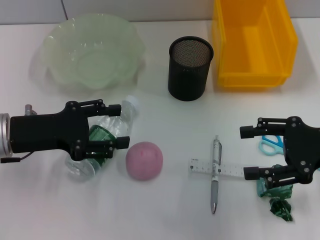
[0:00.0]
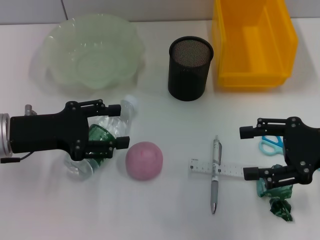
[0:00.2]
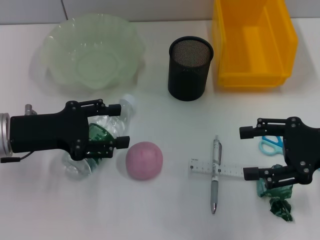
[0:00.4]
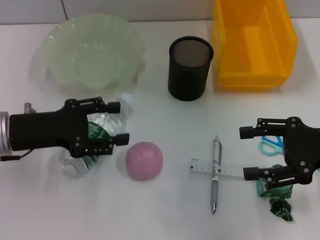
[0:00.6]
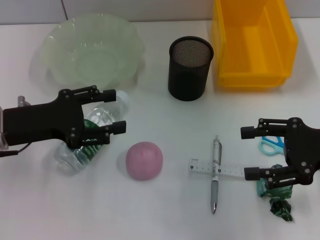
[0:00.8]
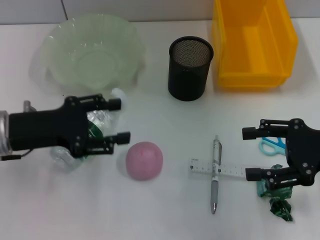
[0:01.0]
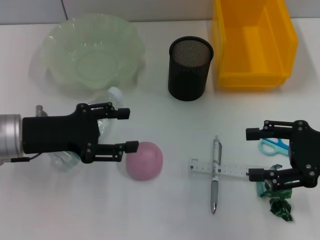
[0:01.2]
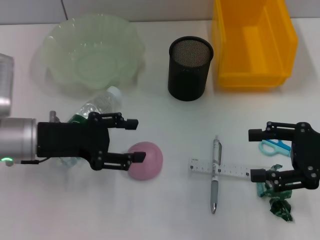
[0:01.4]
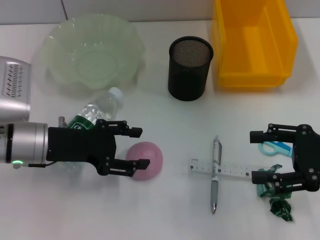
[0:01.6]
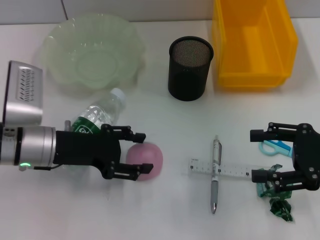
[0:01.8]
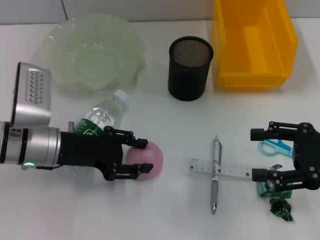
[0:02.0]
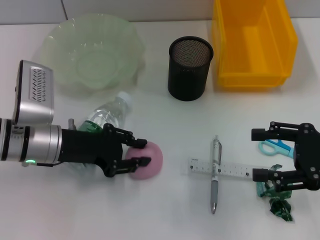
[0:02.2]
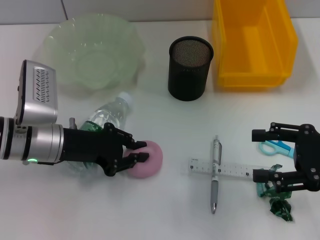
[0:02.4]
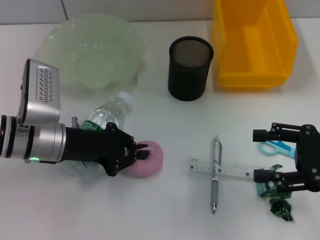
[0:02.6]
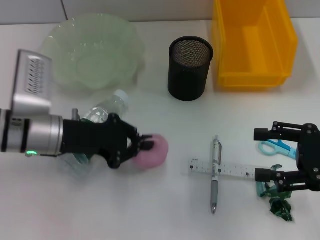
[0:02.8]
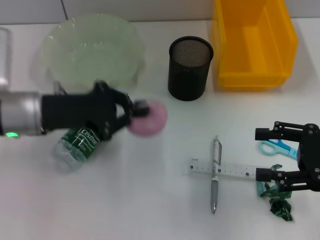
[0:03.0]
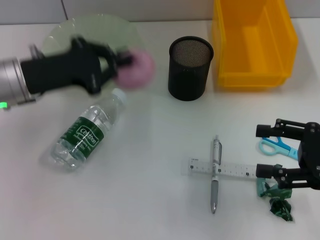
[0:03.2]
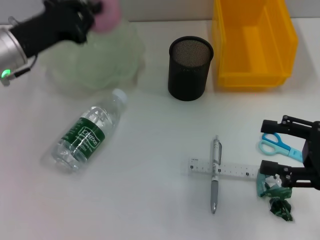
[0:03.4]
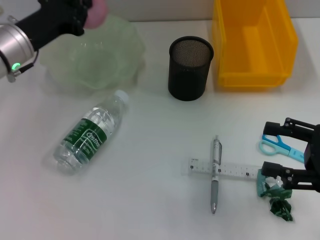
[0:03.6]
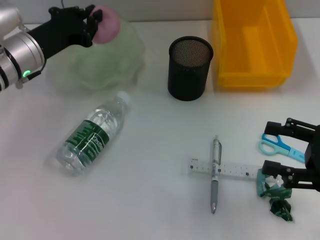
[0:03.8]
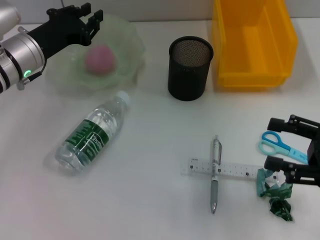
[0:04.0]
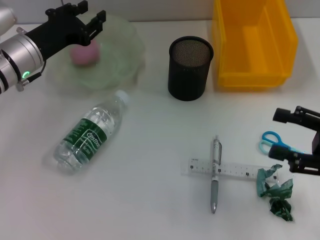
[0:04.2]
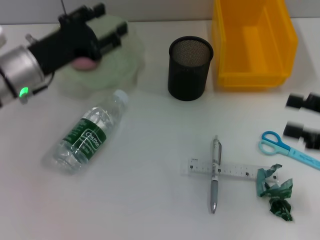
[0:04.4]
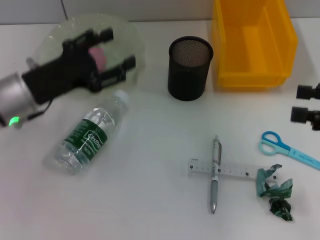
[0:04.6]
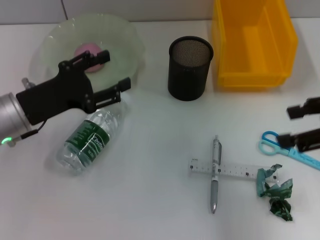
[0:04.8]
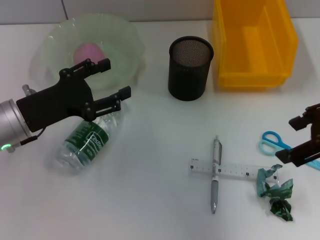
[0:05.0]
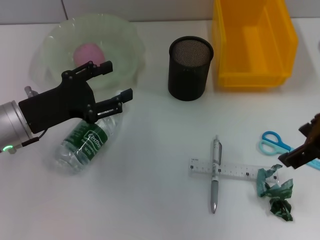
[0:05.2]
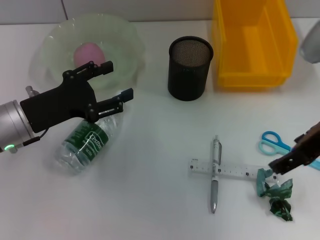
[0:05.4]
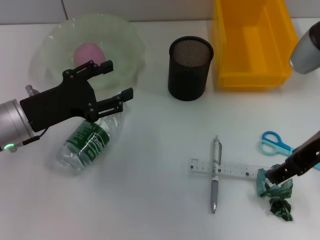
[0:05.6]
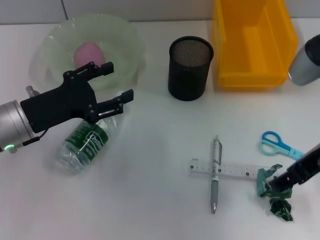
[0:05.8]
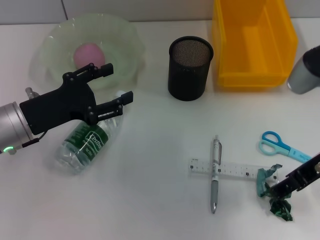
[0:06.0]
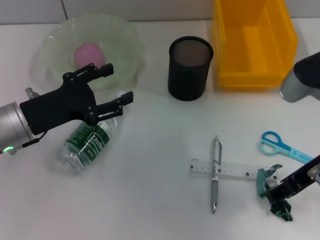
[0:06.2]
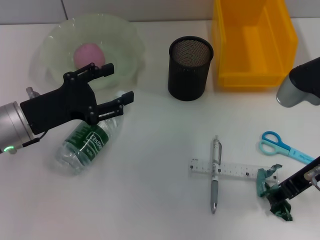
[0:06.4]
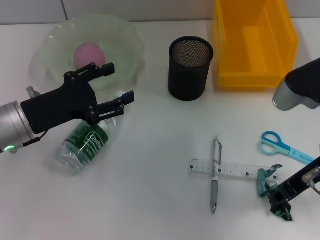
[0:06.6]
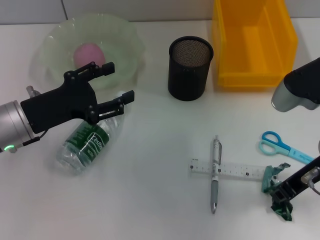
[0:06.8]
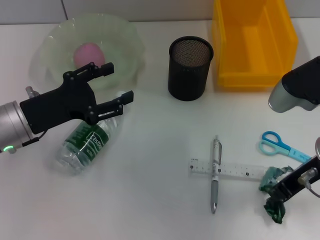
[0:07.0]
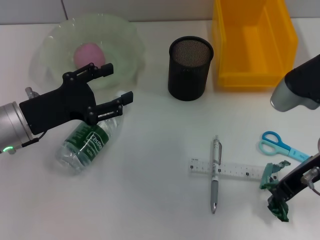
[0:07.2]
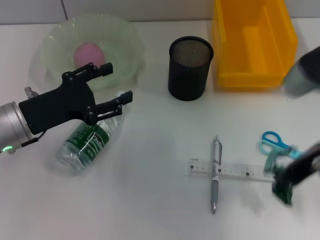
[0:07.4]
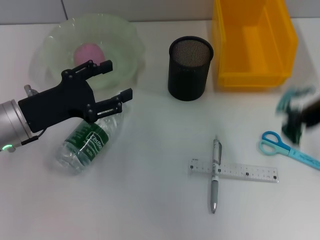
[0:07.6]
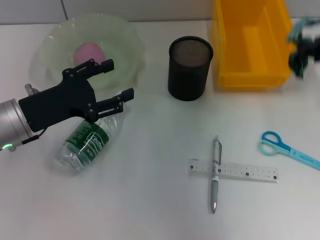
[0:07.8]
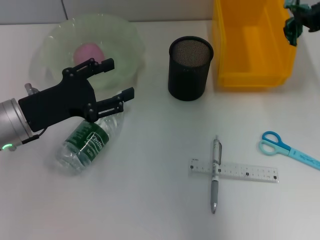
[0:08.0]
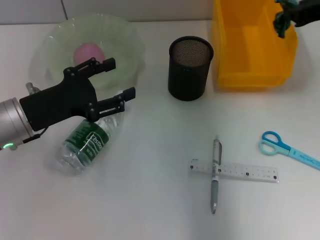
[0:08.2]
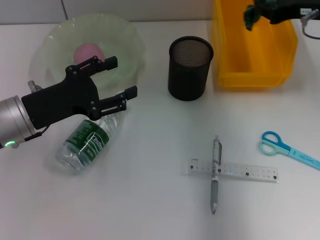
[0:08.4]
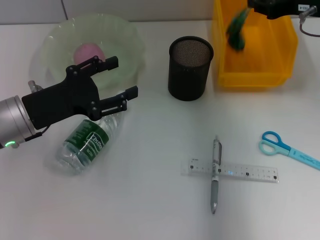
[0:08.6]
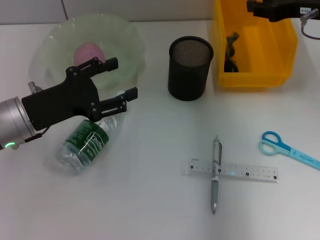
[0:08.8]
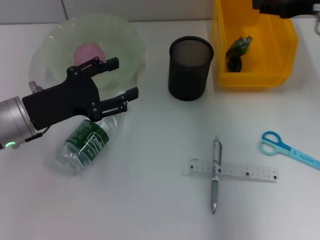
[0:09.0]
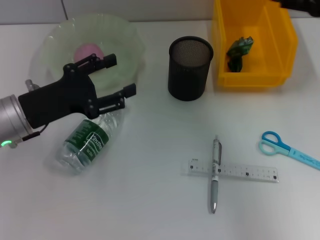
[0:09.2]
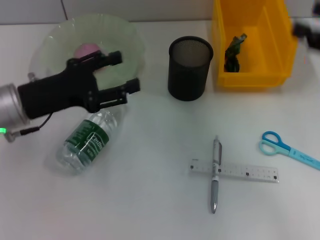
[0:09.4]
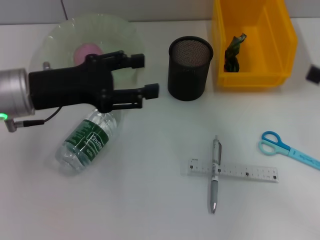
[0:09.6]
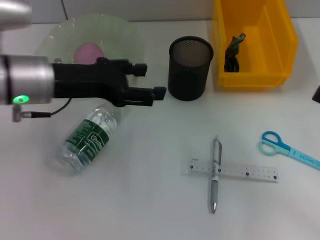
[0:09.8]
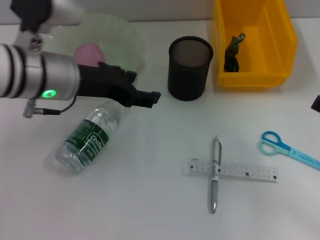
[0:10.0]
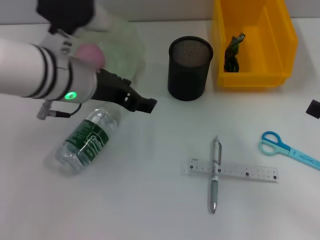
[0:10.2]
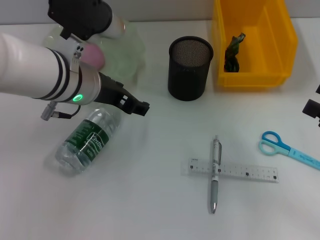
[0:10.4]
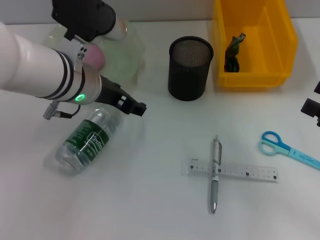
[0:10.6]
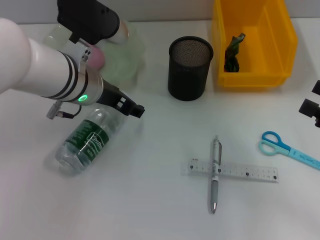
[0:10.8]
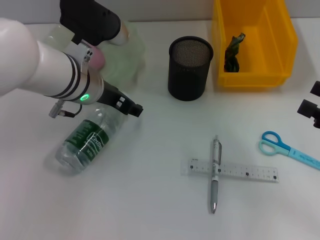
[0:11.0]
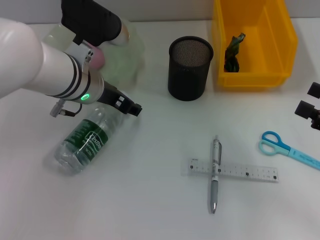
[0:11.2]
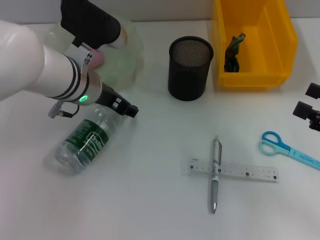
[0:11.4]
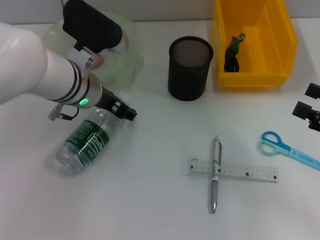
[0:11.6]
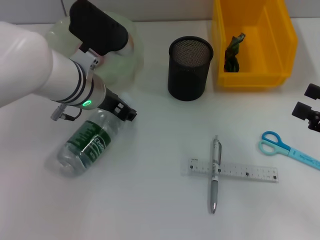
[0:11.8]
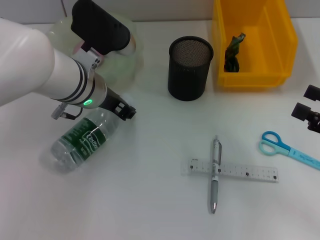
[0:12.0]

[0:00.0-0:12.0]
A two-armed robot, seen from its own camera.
Step, 0.0 to 2.4 s: Grab the orange with the left hand.
Step, 2.6 to 4.2 s: Place the orange into the fruit bowl with the left hand.
Step, 4.4 to 6.8 s: Grab the plastic with the right hand.
Step, 7.0 to 9.0 s: Place the plastic into the trash can with the right hand.
Step, 9.2 to 12.0 s: Grab the water bottle with the left hand.
0.0 to 1.6 s: There are only small adjustments of the grippers.
1.6 to 3.0 s: The left gripper closes up.
3.0 to 4.4 s: The left gripper travels forward by approximately 5 cm, and opens.
4.4 to 6.0 s: The left gripper travels backward by roughly 10 cm, and opens. The right gripper heads to the left and upward, covering some 15 cm.
6.0 to 7.6 s: The right gripper goes about 5 cm upward, and closes.
7.6 to 9.0 s: The right gripper is displaced forward by about 10 cm, and opens up.
9.0 to 10.4 s: The right gripper shifts approximately 20 cm backward, downward and to the right, and opens, while the left gripper is displaced to the right and upward by about 15 cm.
10.4 to 12.0 s: The left gripper shifts by roughly 5 cm.

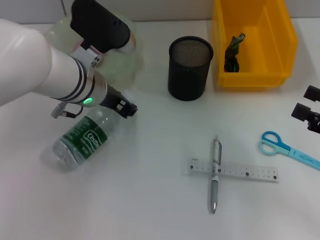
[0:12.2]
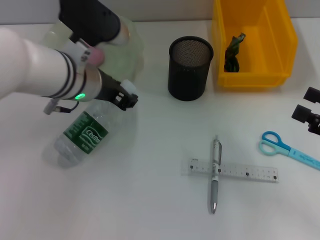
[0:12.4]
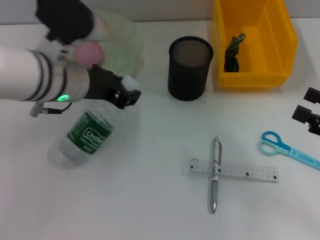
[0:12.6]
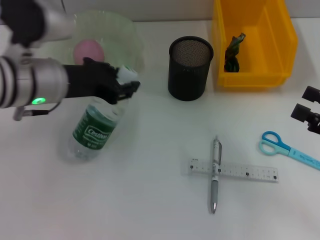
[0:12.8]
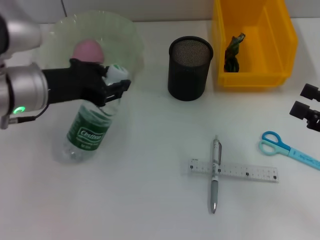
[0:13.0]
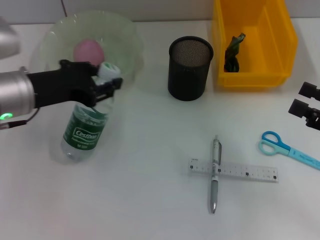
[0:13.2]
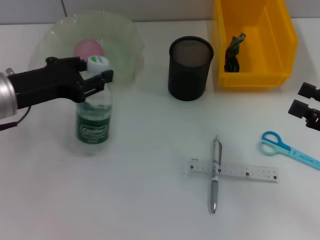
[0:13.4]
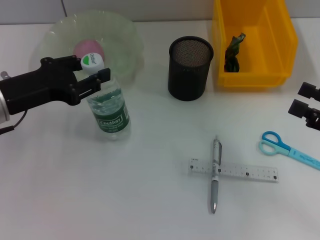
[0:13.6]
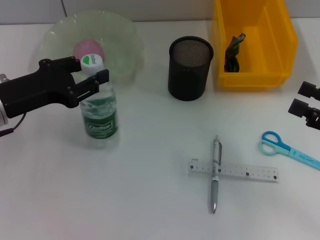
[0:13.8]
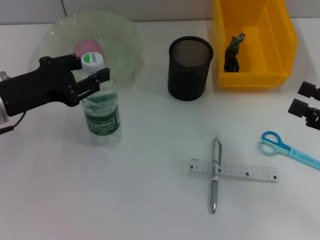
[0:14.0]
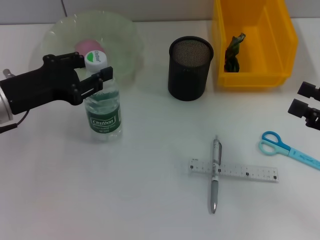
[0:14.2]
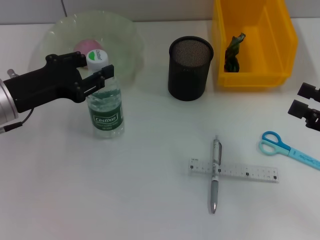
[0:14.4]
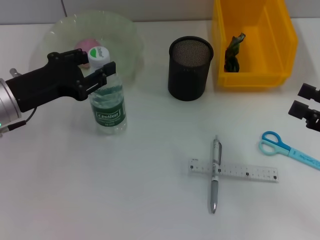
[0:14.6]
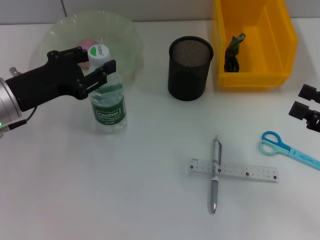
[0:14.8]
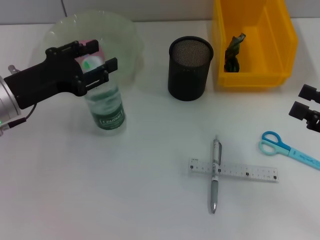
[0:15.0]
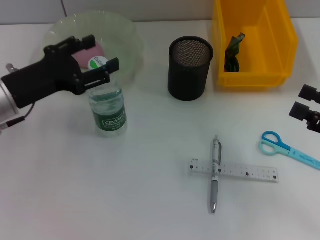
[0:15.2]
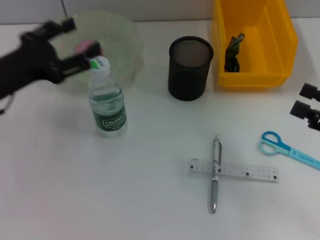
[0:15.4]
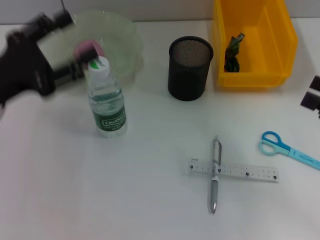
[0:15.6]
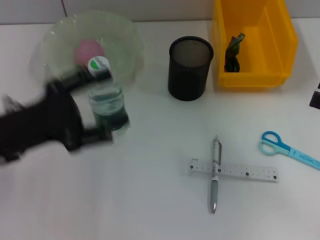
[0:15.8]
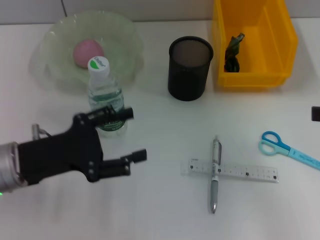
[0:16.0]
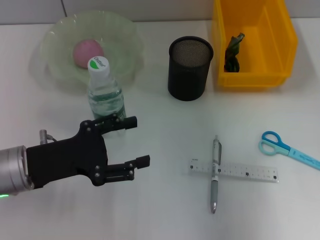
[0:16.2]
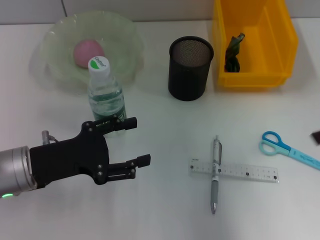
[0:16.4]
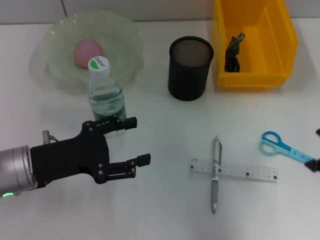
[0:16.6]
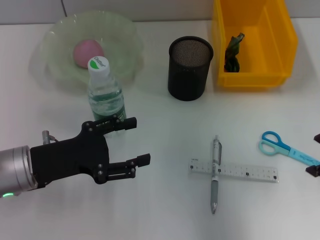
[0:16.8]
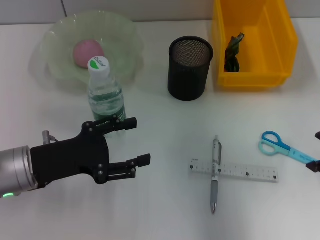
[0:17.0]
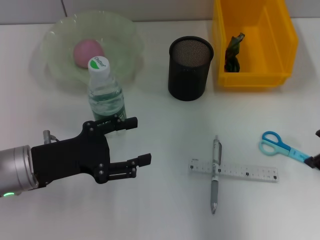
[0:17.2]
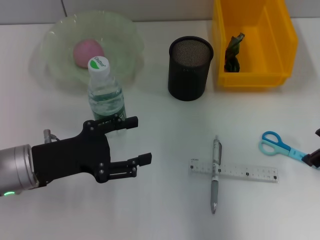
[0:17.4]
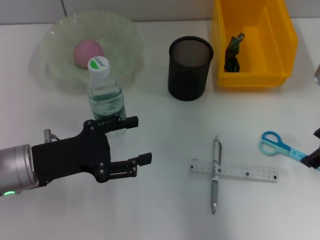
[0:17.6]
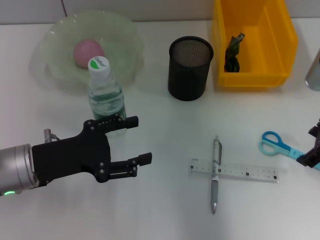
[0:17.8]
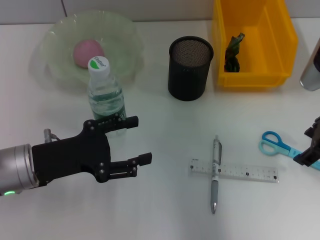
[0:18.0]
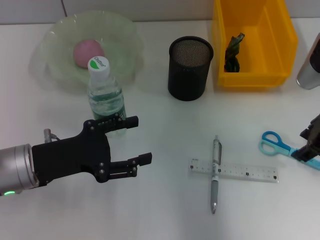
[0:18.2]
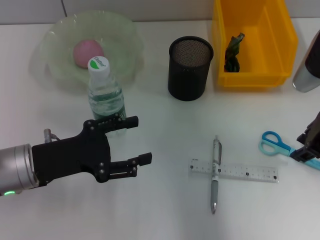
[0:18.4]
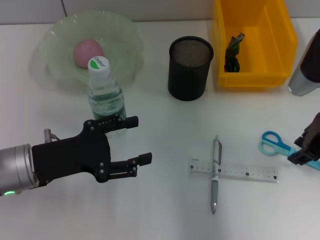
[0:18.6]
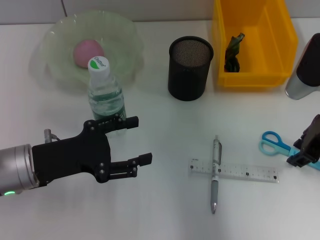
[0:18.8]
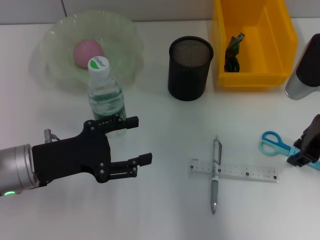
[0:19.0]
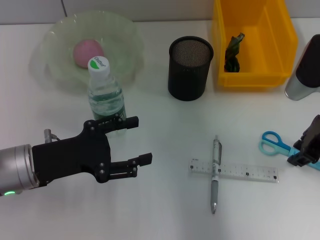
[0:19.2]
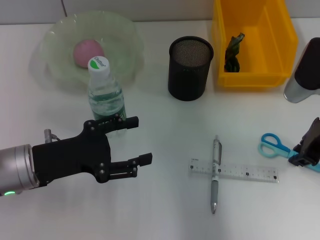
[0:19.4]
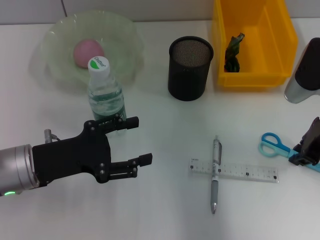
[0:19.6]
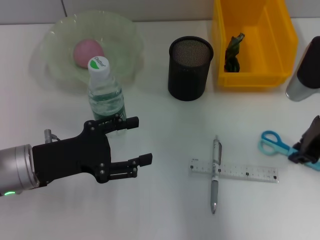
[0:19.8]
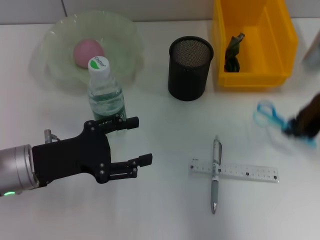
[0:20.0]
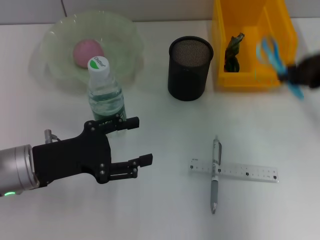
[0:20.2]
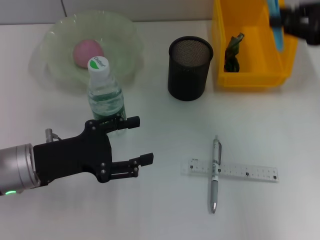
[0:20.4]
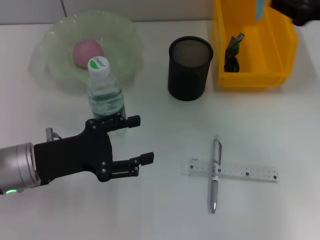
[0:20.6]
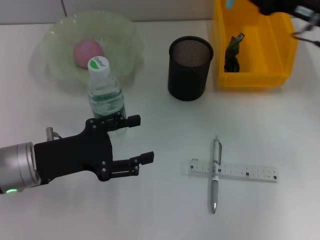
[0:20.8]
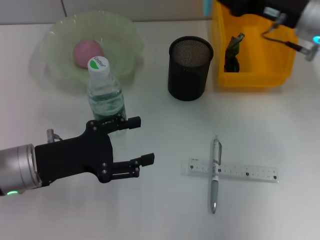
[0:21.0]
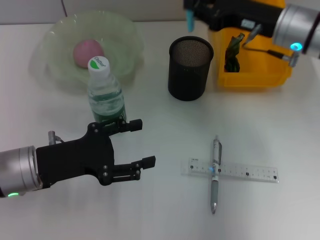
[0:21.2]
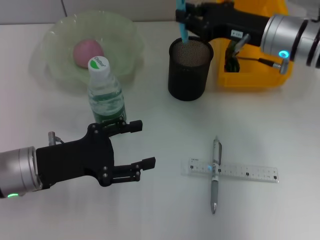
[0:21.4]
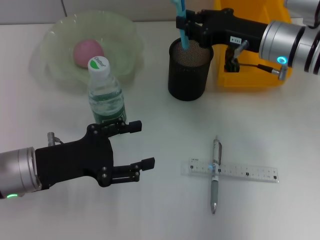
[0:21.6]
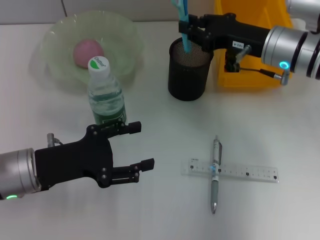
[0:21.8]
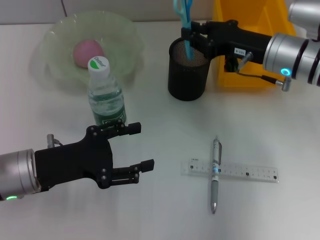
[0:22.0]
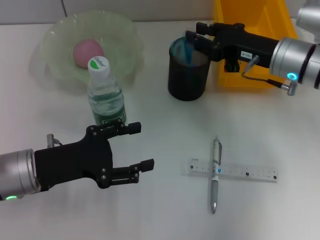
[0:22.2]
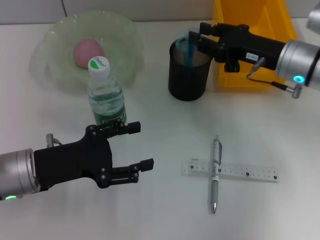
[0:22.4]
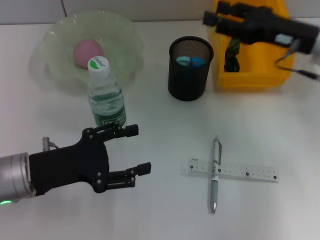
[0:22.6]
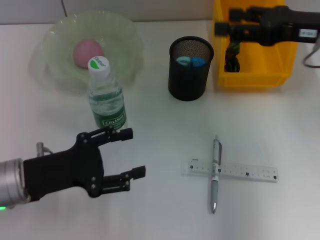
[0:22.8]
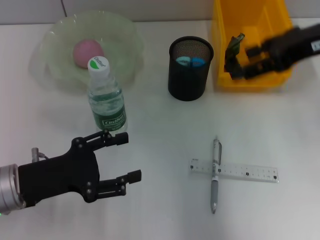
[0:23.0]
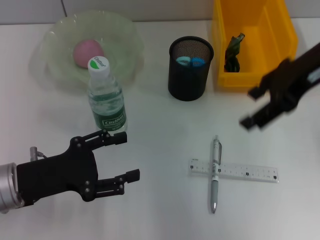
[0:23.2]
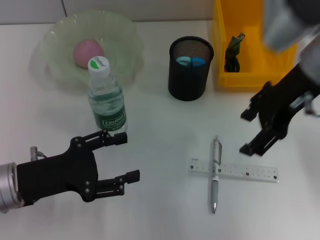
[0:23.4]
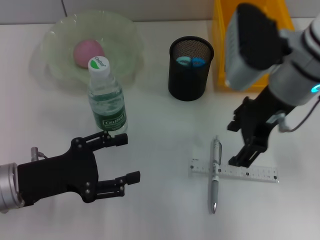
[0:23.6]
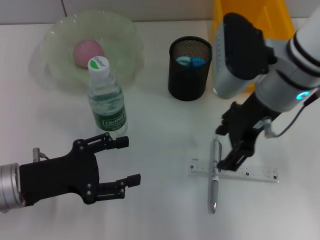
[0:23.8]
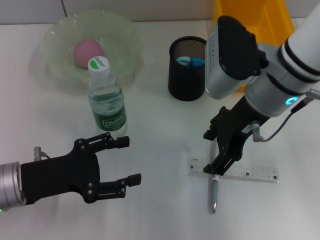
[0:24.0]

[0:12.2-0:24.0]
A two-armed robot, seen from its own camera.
Step, 12.2 to 15.0 s: Place the water bottle on the table with the left hand.
Step, 15.2 to 19.6 s: Grab the blue scissors with the right hand.
Step, 19.8 to 22.4 s: Place the blue scissors into the pen holder with the right hand.
12.2 to 13.6 s: The left gripper shifts approximately 15 cm to the left and backward.
13.6 to 15.2 s: The left gripper opens up.
15.2 to 16.6 s: The left gripper is displaced backward by roughly 5 cm. The right gripper goes some 15 cm upward, to the left and forward.
16.6 to 18.2 s: The right gripper goes some 10 cm forward and downward.
18.2 to 19.6 s: The right gripper closes up.
19.6 to 21.0 s: The right gripper shifts some 5 cm forward, and moves about 10 cm upward and comes back.
21.0 to 22.6 s: There are only small adjustments of the grippers.
22.6 to 24.0 s: The right gripper travels to the left by some 10 cm, and opens.
